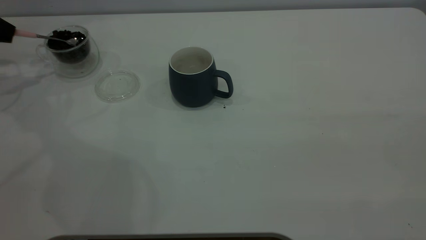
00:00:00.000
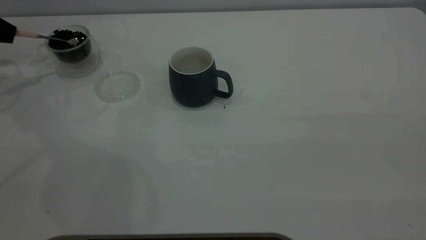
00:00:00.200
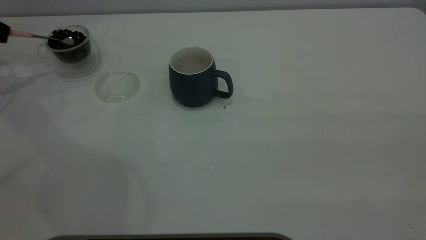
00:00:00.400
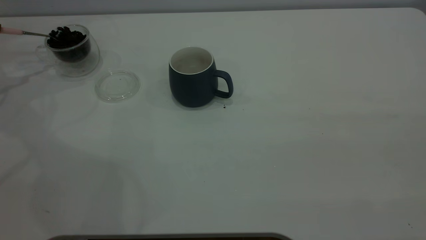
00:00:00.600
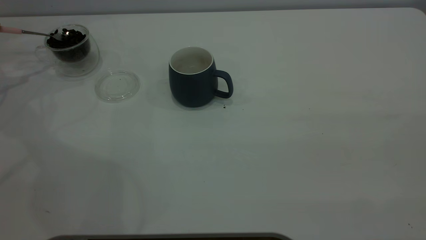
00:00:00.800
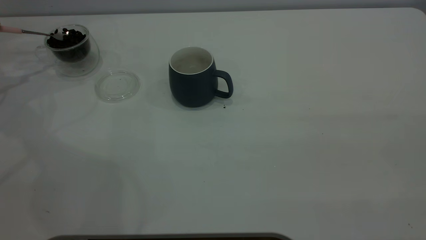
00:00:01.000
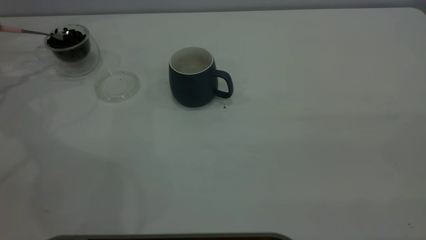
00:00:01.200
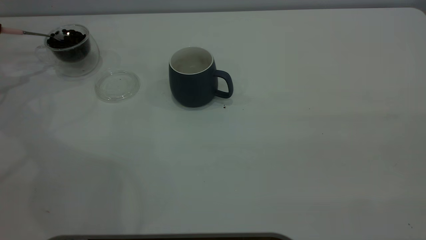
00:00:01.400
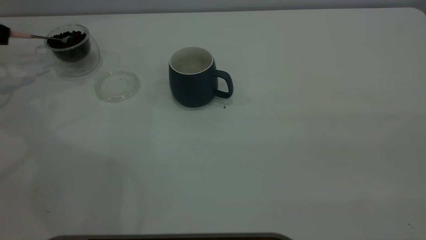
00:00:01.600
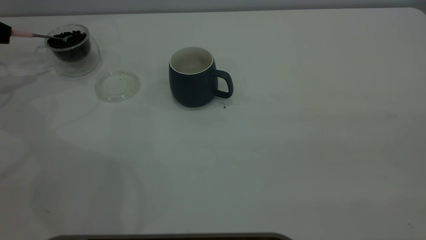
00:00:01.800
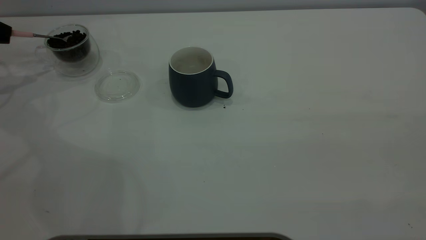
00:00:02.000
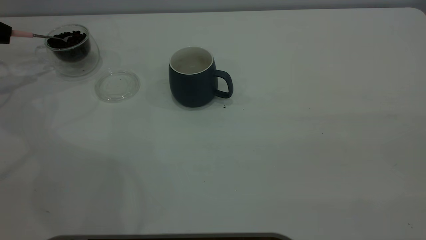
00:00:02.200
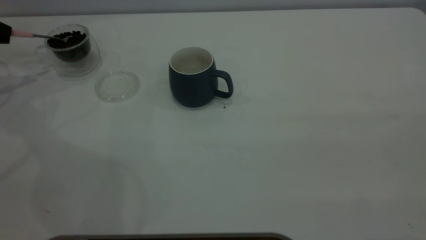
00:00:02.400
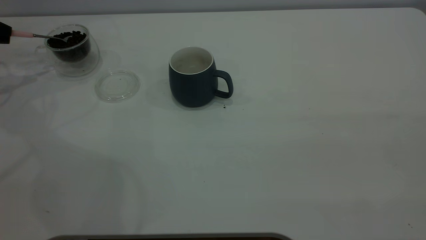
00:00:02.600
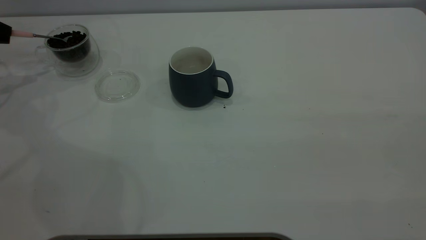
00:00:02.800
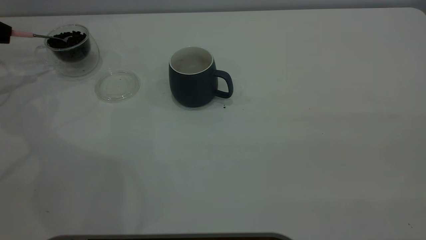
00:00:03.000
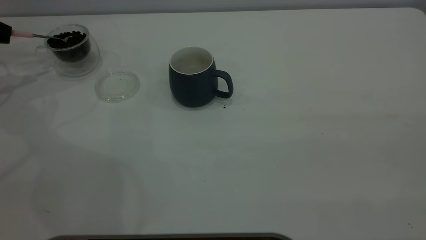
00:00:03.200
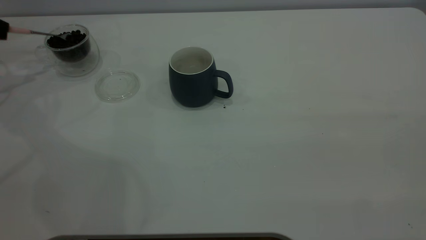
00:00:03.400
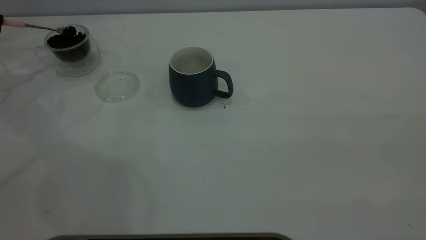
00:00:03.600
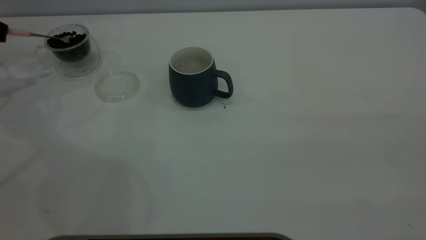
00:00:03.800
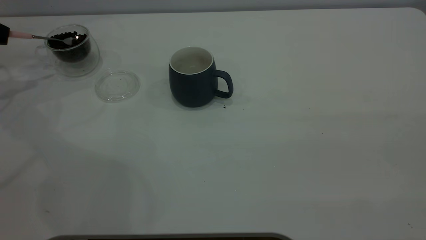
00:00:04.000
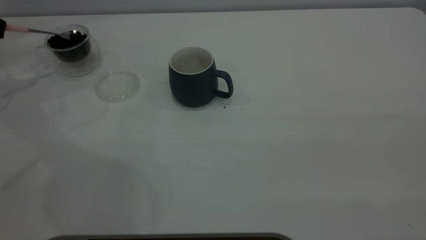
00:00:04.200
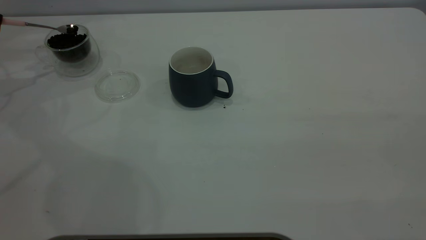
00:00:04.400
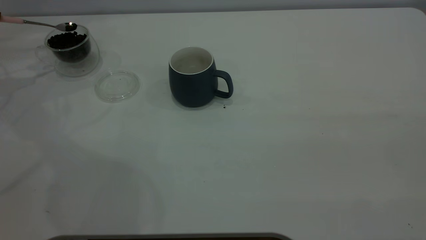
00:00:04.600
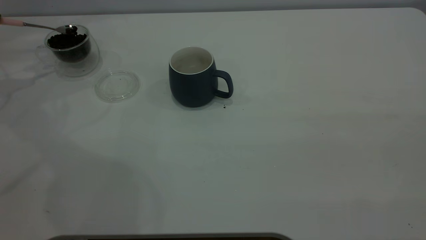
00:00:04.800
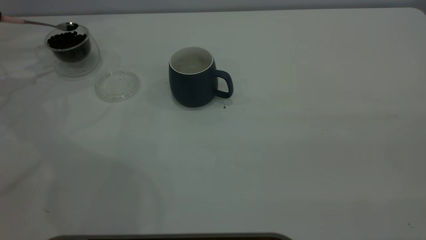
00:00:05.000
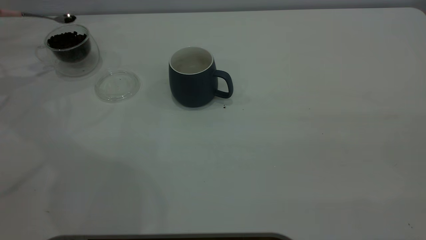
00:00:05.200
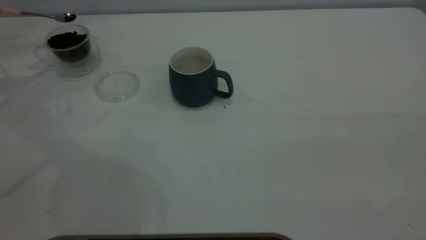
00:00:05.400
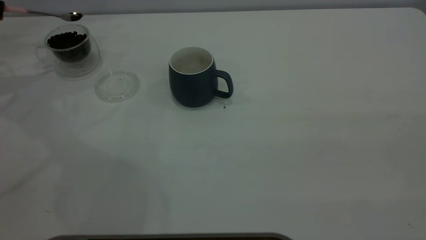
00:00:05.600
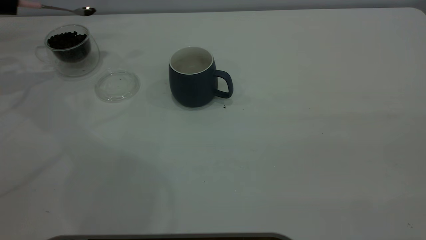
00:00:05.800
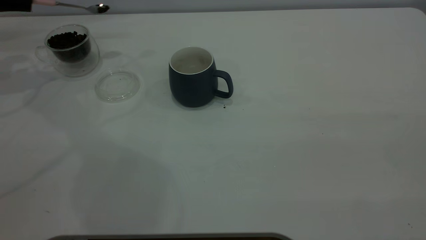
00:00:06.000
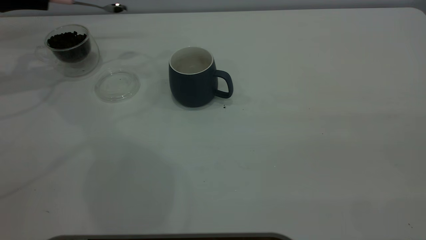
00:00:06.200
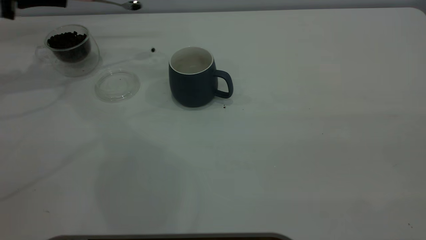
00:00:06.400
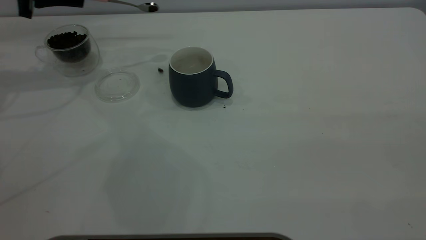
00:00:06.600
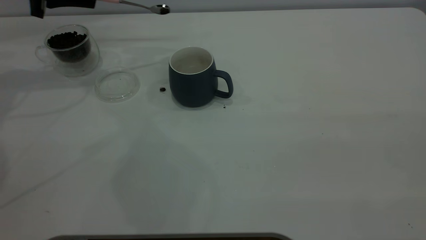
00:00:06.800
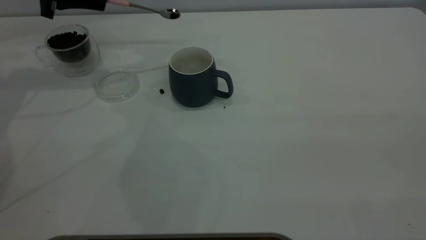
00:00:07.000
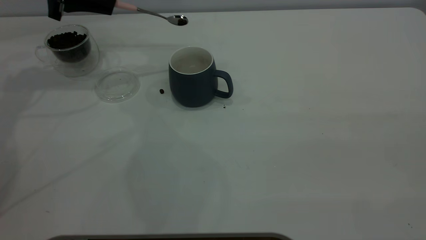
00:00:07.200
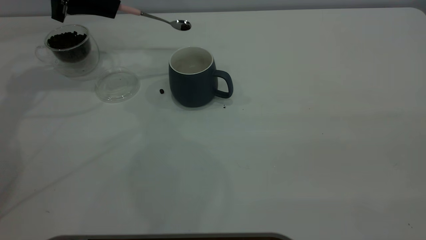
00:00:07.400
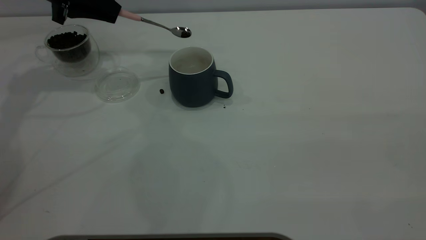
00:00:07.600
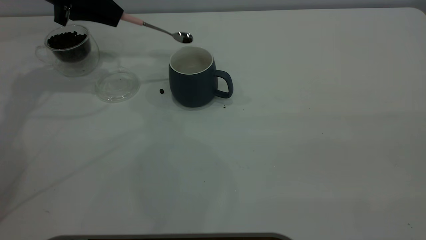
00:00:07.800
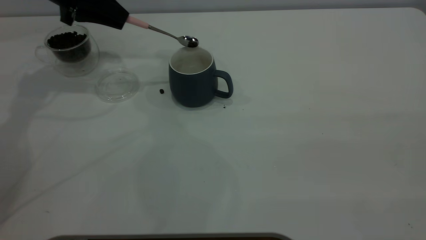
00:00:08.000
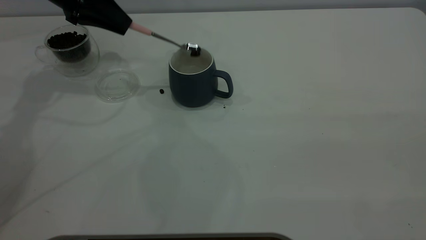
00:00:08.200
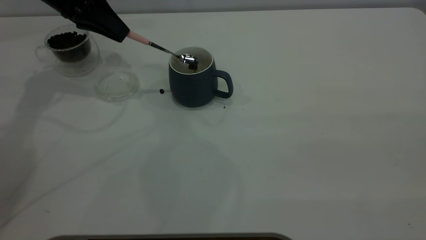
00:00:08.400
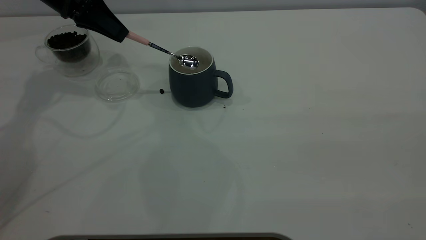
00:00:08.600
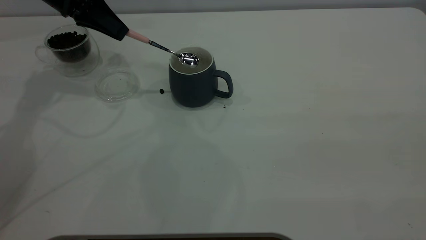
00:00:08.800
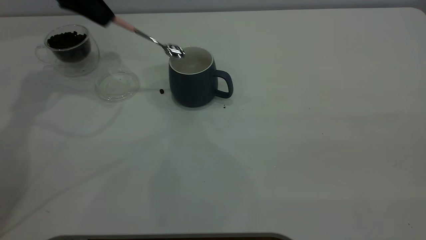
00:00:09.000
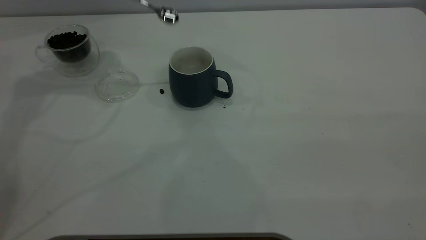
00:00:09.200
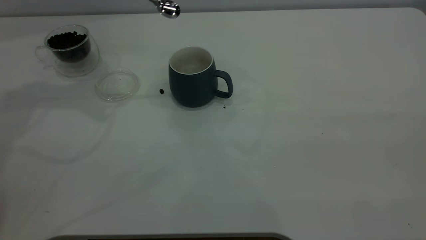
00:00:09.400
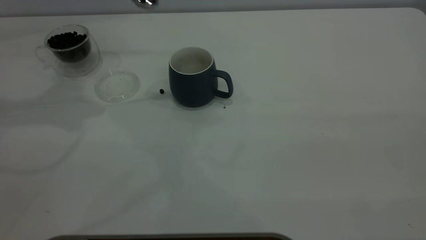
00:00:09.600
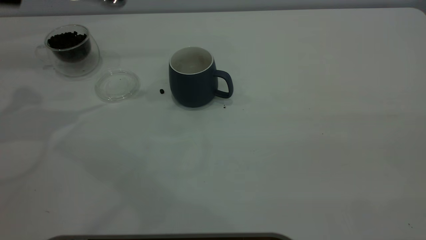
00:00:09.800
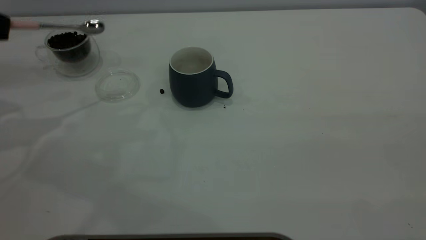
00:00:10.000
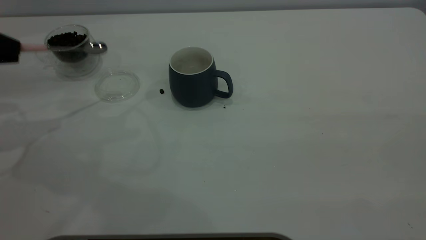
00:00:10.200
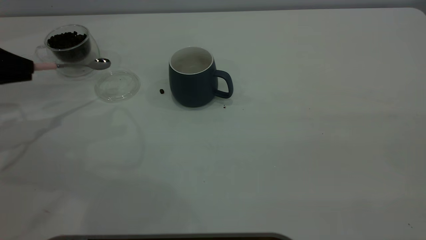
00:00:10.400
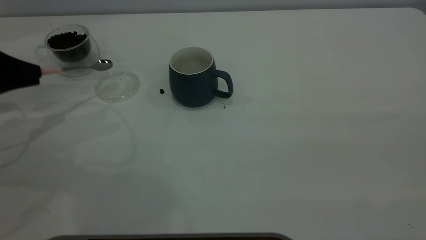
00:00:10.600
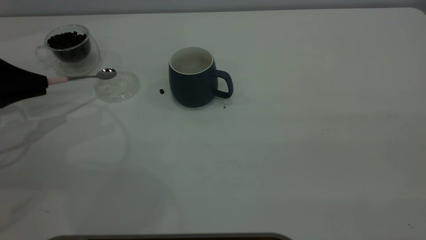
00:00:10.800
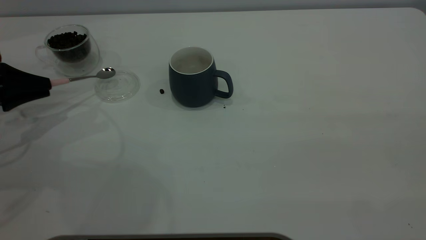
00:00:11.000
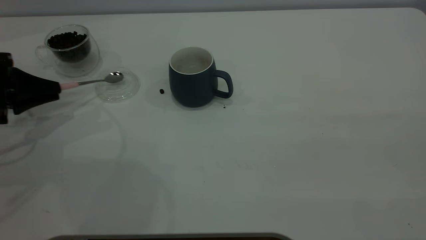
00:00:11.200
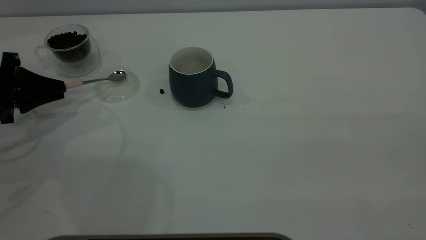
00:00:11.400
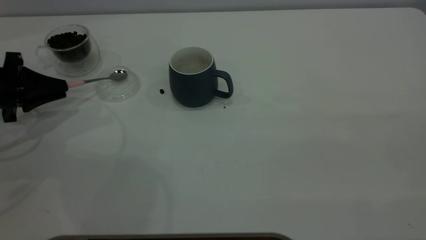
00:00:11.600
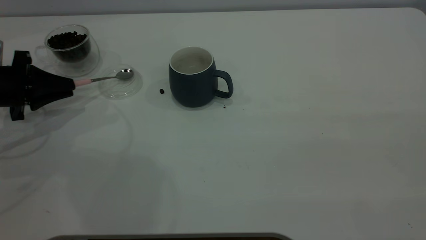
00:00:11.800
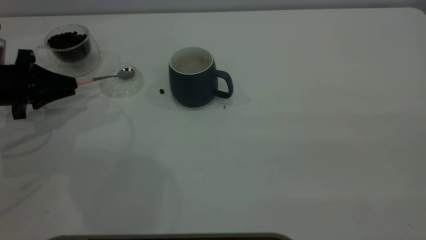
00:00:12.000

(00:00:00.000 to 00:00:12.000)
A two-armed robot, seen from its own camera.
Task of the whole recording: the right gripper place the grey cup in the center of the table, the left gripper take the pink spoon from the cup lid and scoop out the coffee beans from the coffee cup and put them into the grey cup, the left gripper put the spoon back into the cup lid.
Step, 00:00:00.000 - 00:00:09.000: Scoop a spoonful of beans into the cup.
00:00:01.600 - 00:00:03.000: Both grippers stay about where they are.
00:00:04.400 - 00:00:06.000: The left gripper goes about 5 cm to the right.
00:00:06.000 - 00:00:07.600: The left gripper moves to the right, approximately 15 cm.
00:00:07.600 - 00:00:09.000: The left gripper shifts roughly 5 cm upward.
00:00:09.000 - 00:00:10.400: The left gripper travels backward, to the left and downward by roughly 25 cm.
00:00:10.400 - 00:00:12.000: The left gripper is displaced downward by roughly 5 cm.

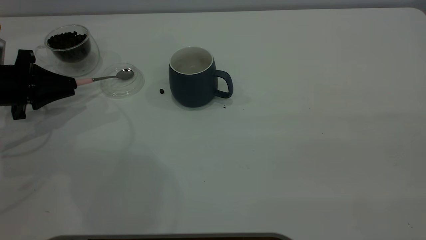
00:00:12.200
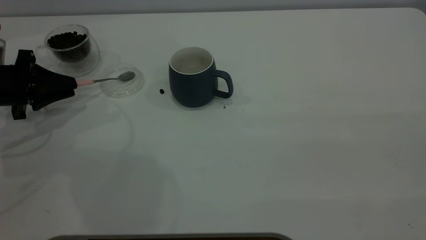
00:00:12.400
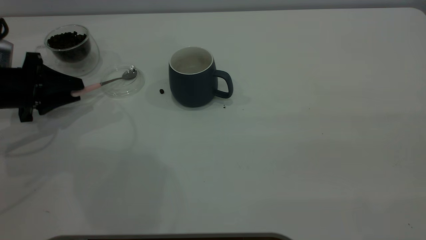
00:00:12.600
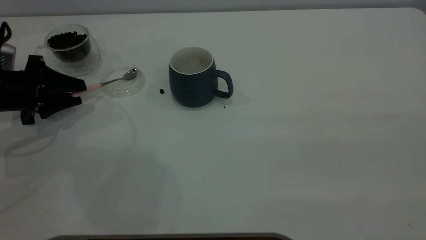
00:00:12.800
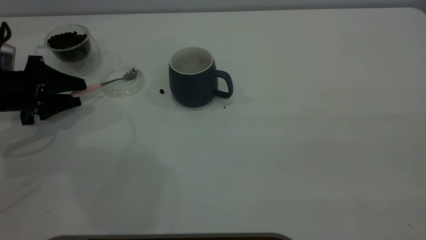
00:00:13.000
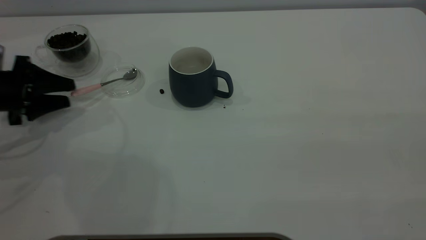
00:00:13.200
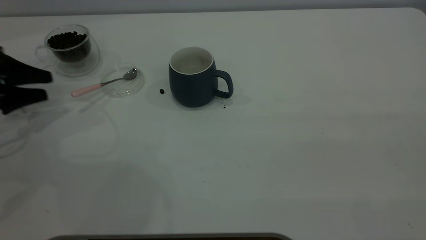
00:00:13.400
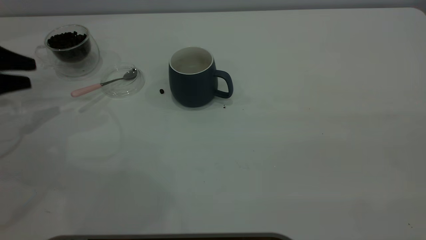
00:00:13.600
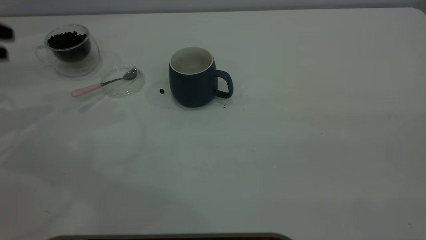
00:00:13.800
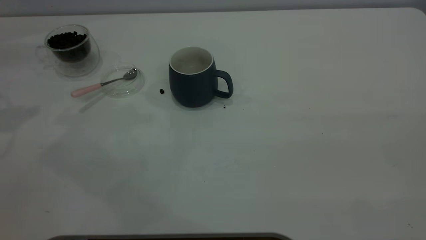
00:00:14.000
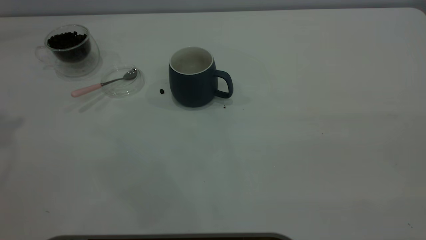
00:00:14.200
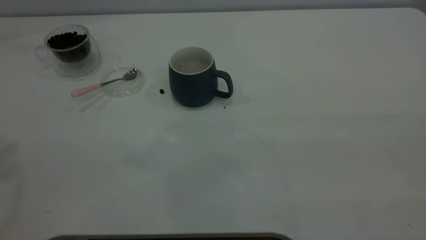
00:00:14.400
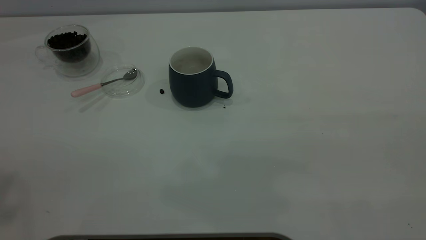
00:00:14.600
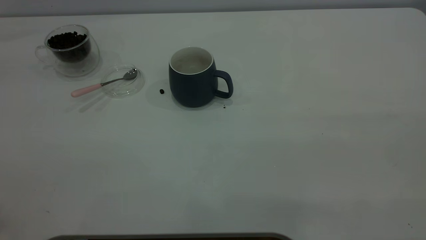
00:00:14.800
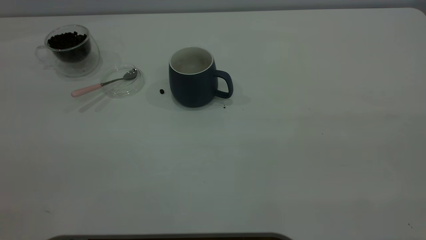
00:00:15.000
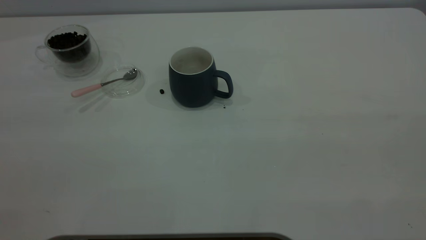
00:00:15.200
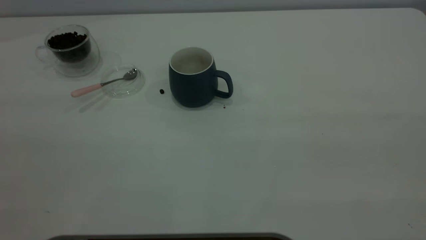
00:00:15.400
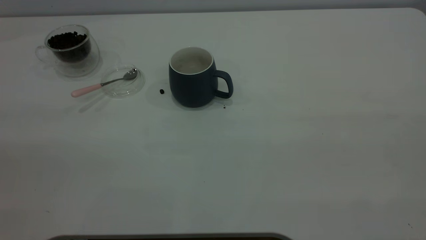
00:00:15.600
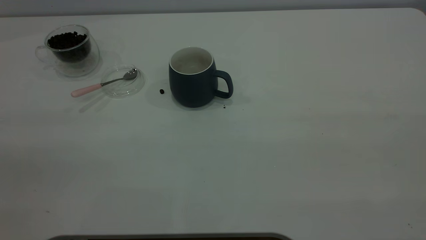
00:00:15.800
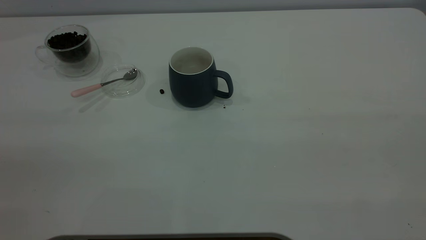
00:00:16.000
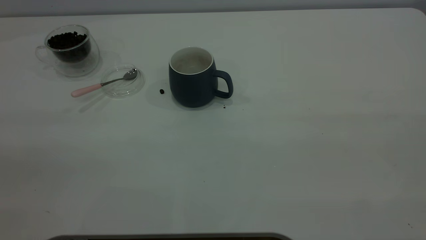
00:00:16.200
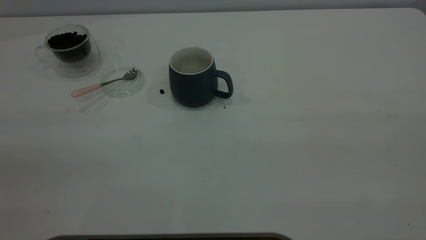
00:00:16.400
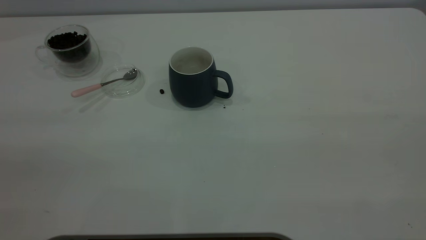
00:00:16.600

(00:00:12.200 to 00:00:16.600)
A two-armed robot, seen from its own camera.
Task of the whole recording: the right gripper place the grey cup in the center of the table, the left gripper take the pink spoon from the cup lid and scoop out the coffee beans from the coffee cup and put them into the grey cup, the left gripper put the spoon back into the cup lid.
00:00:12.200 - 00:00:13.600: The left gripper moves upward, some 5 cm, and opens.
00:00:13.600 - 00:00:15.200: The left gripper is displaced upward and backward by approximately 50 cm.
